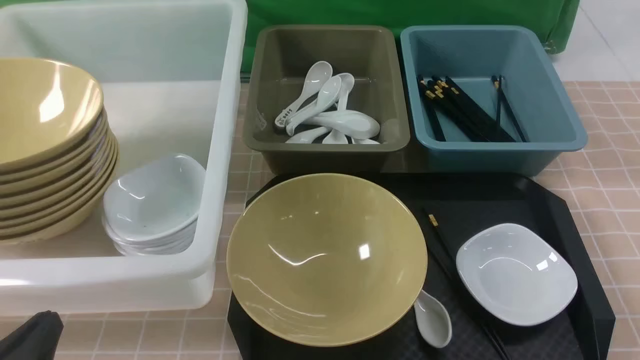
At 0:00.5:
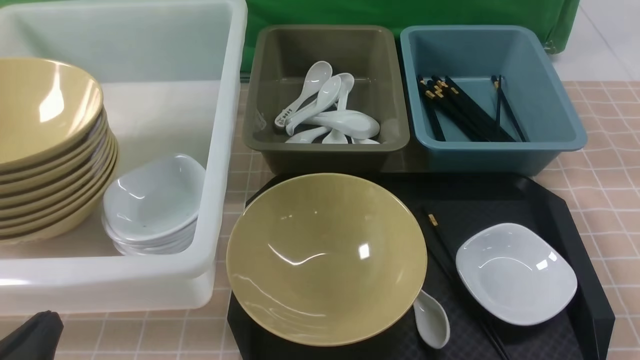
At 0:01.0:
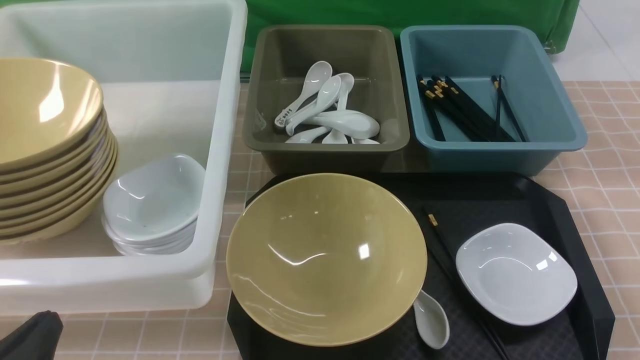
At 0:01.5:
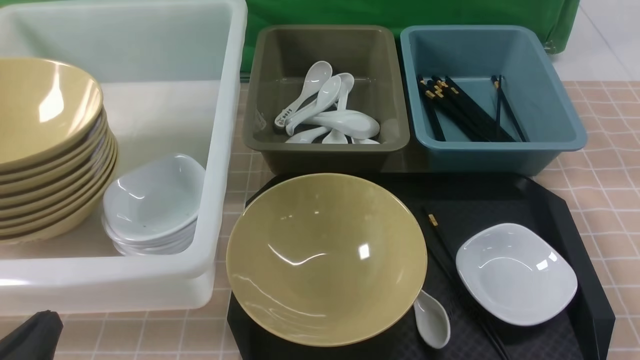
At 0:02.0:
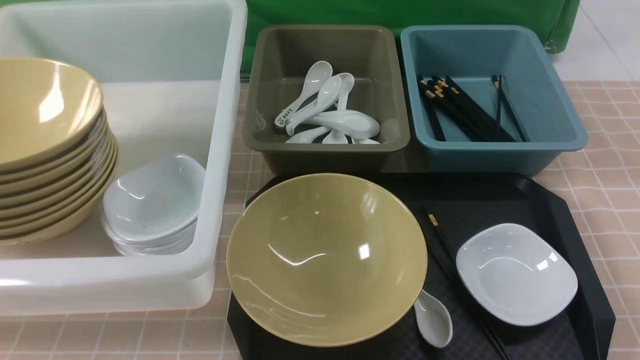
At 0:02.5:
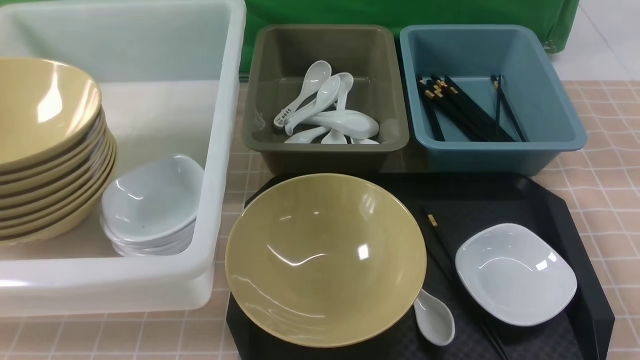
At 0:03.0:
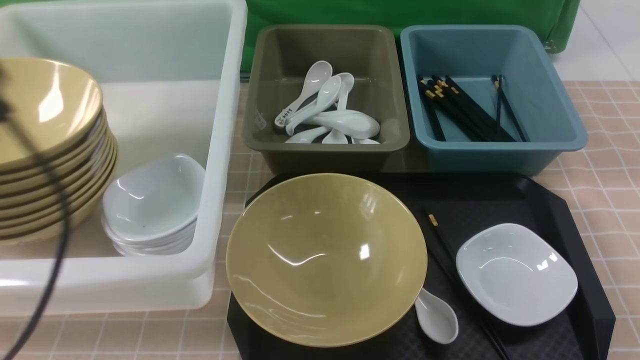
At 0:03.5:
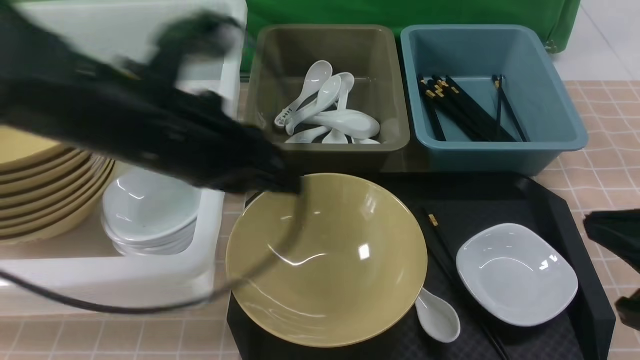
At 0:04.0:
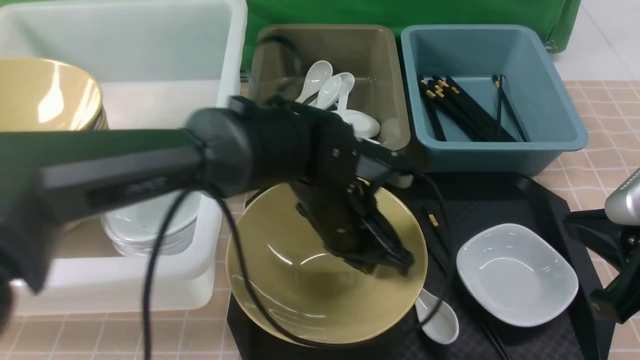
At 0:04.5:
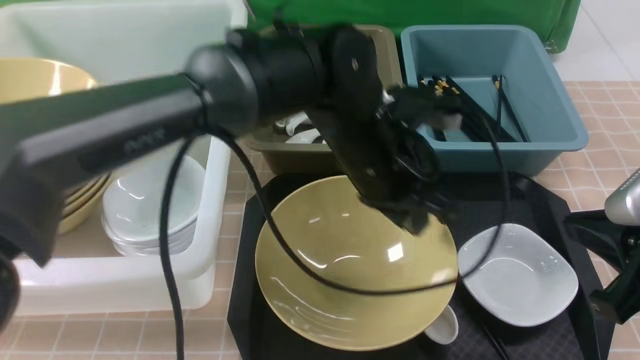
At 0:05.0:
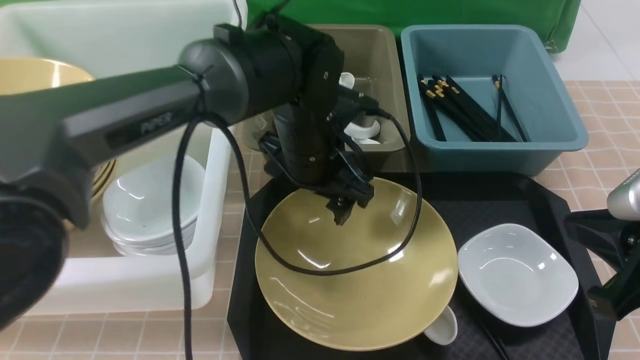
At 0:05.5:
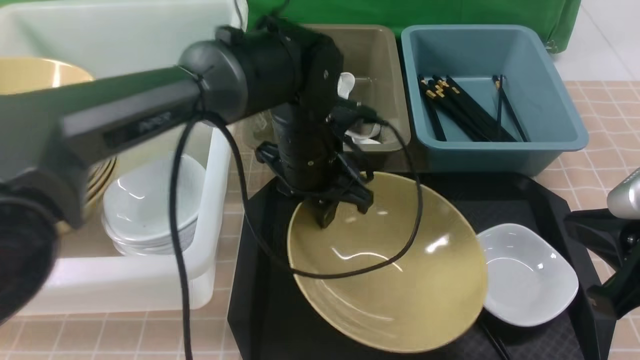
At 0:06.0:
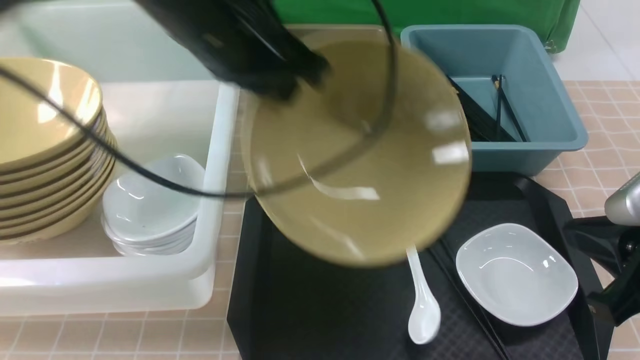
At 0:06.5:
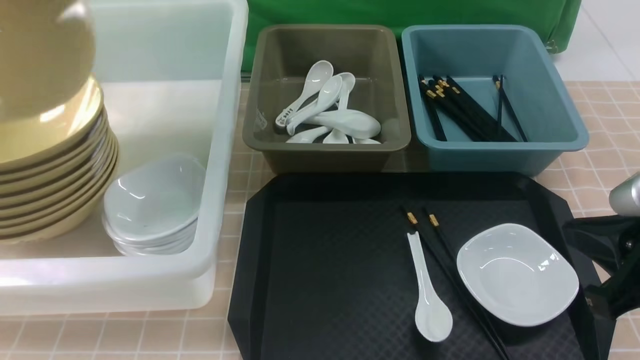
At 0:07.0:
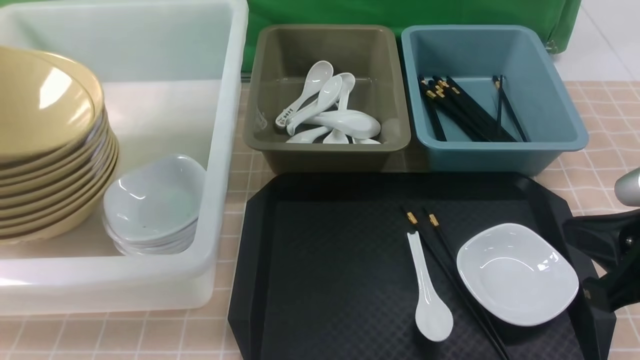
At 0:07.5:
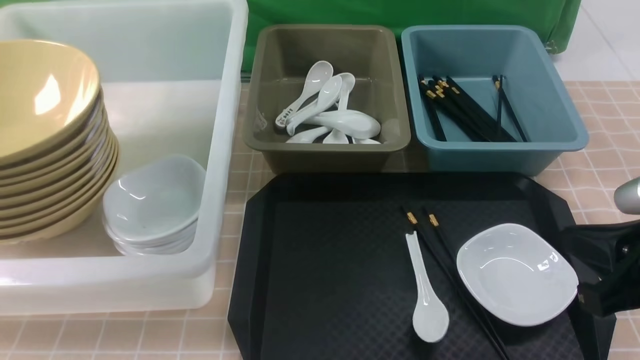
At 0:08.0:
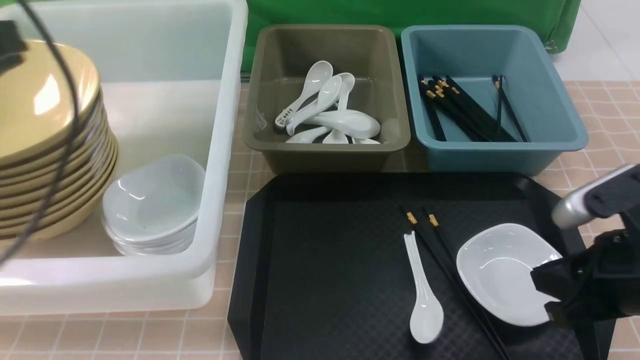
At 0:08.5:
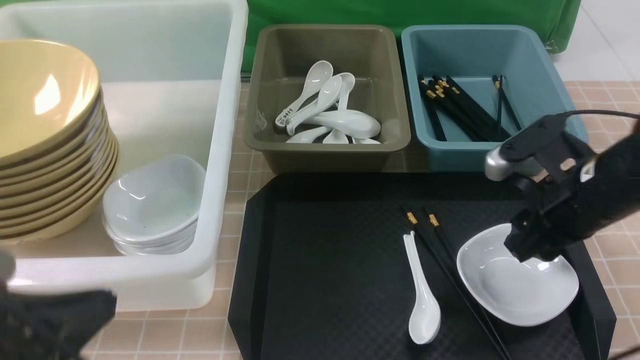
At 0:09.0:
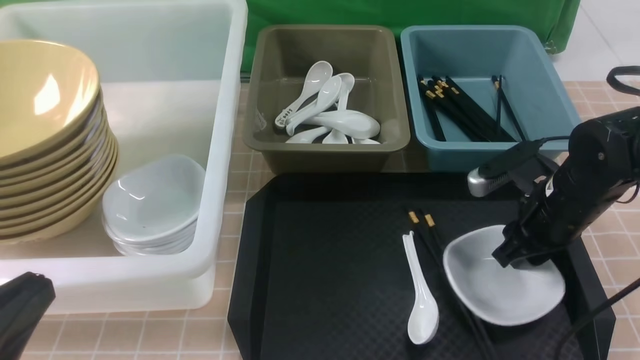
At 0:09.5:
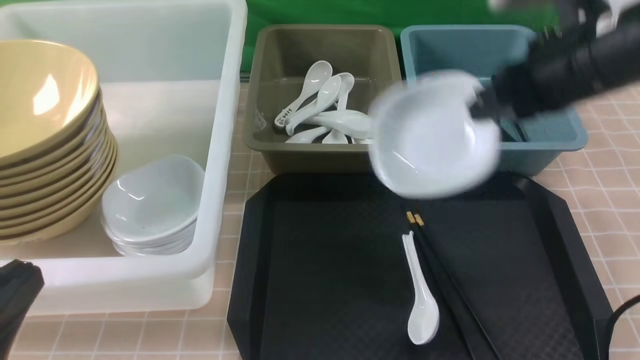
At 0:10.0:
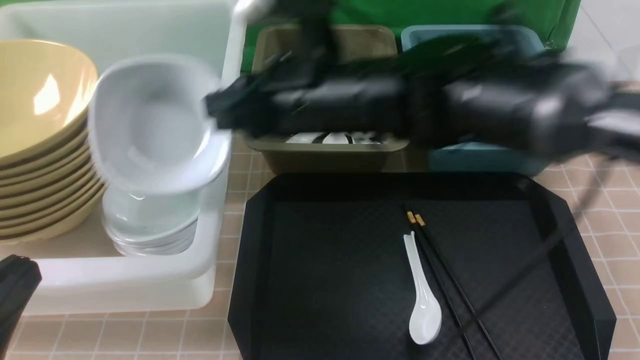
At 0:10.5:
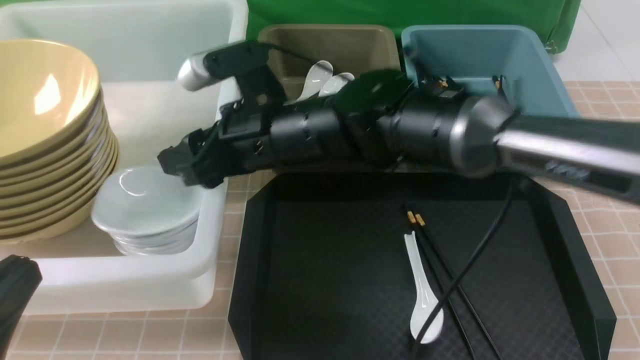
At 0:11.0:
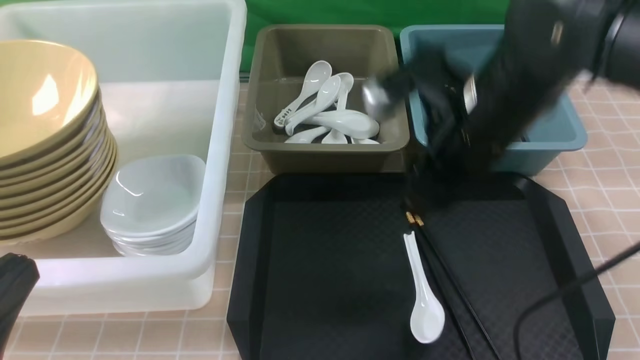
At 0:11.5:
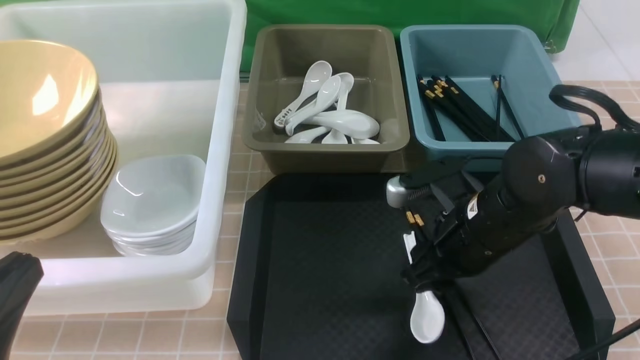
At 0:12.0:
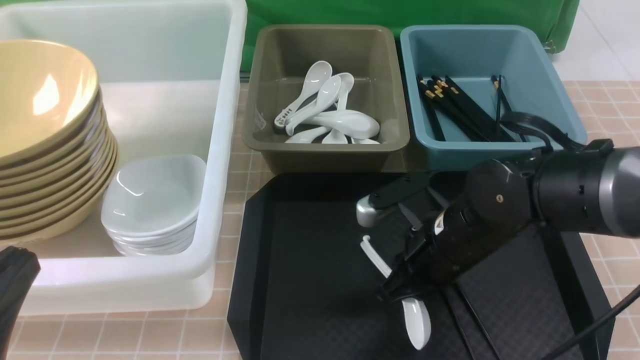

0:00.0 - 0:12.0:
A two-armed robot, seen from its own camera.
Task of the whole recording: on brown table put chopsticks spoon bowls plates into blue grey white boxes.
Step, 0:00.0 - 0:06.0: use the left arm to grab the yellow noodle bowl on the left.
Step, 0:06.5 - 0:07.5: use the left arm to put the noodle bowl into the large storage box on the left.
Step, 0:08.0 - 0:09.0: use the right arm to grab the plate.
Step, 0:09.5 - 0:10.5: use the right arm to put the plate into the large storage box on the left.
0:00.0 - 0:02.0: The left gripper heads upward, covering approximately 5 cm.
0:02.0 - 0:04.0: The right gripper moves forward and to the left, some 15 cm, and closes its fingers. The left gripper goes about 35 cm to the right and forward.
0:04.0 - 0:06.0: The left gripper shifts about 25 cm upward and to the left, and opens and closes again.
0:06.0 - 0:08.0: The left gripper shifts some 15 cm to the left and backward, and opens, then closes again.
0:08.0 - 0:10.0: The right gripper shifts about 30 cm to the left and forward, and opens, then closes again. Meanwhile the left gripper heads backward and downward, covering roughly 20 cm.
0:10.0 - 0:12.0: The right gripper goes some 15 cm downward and to the right, and opens and closes again.

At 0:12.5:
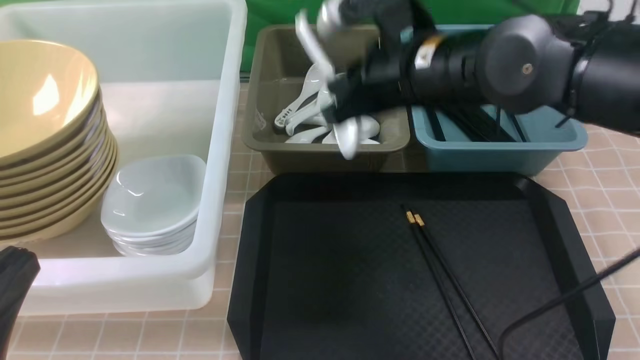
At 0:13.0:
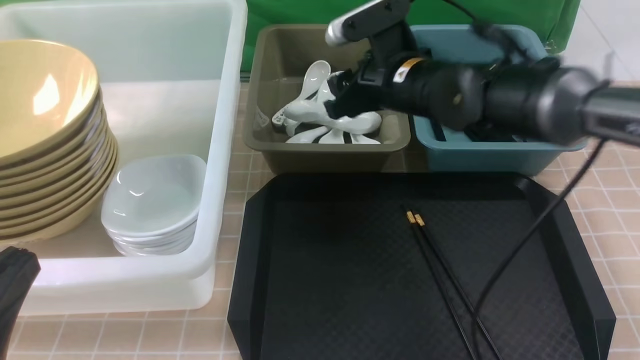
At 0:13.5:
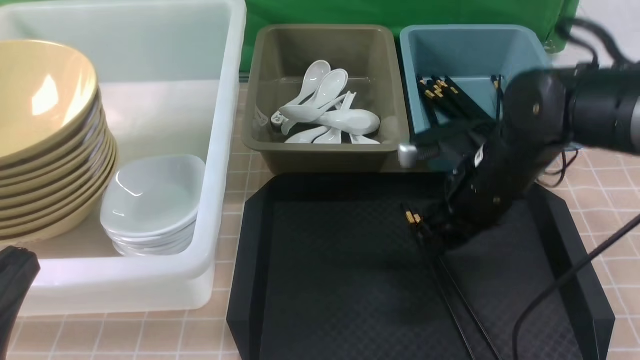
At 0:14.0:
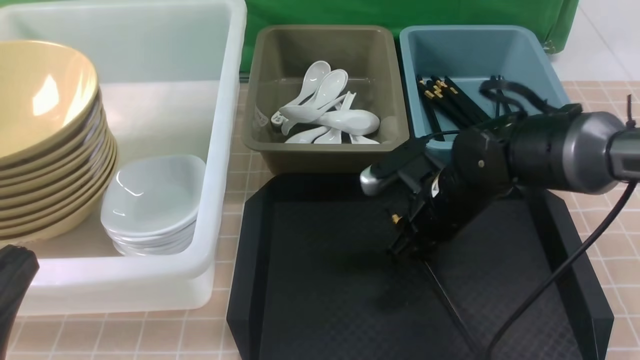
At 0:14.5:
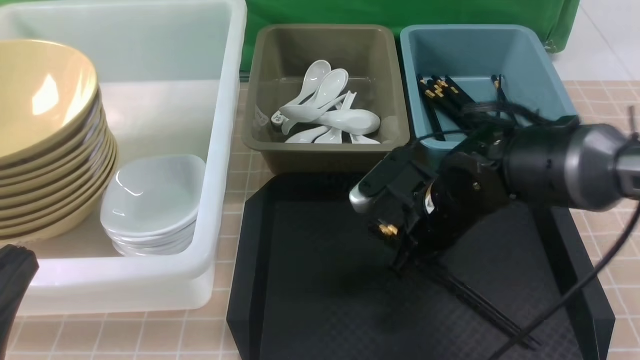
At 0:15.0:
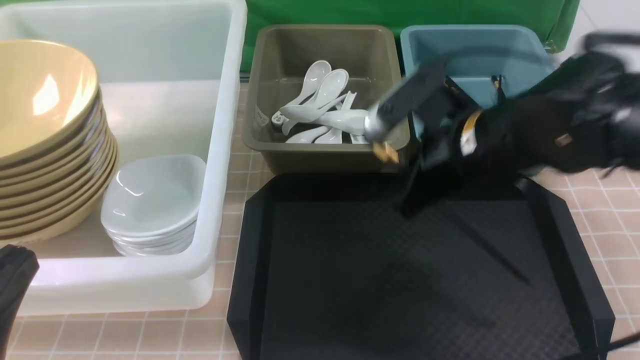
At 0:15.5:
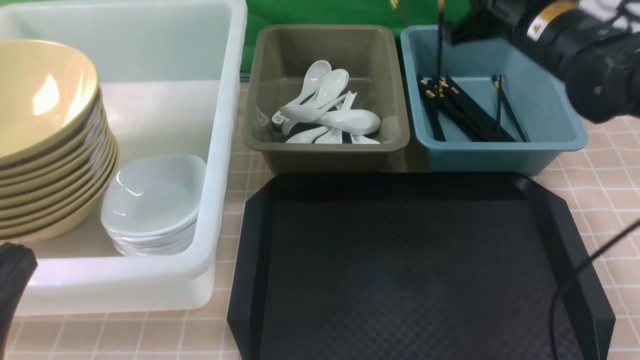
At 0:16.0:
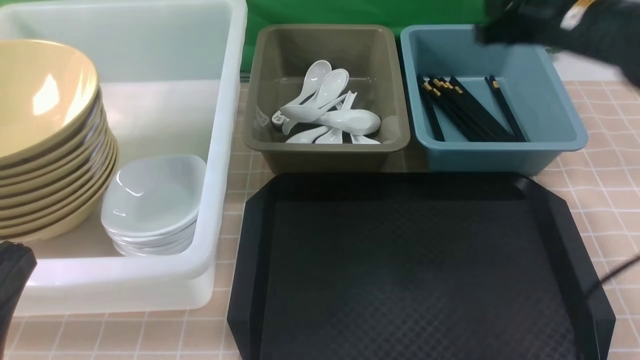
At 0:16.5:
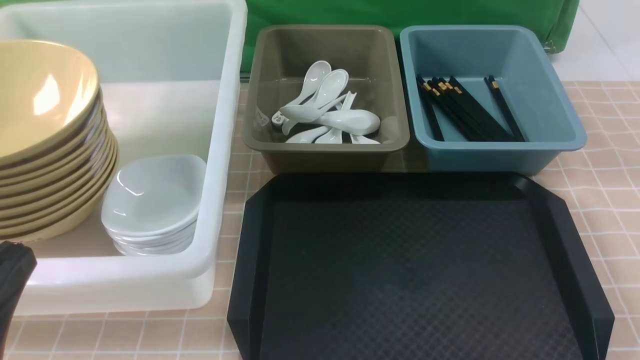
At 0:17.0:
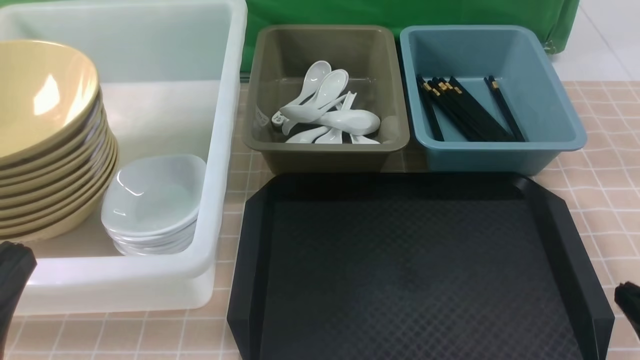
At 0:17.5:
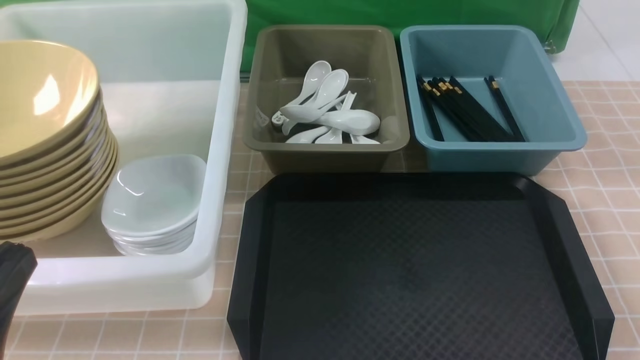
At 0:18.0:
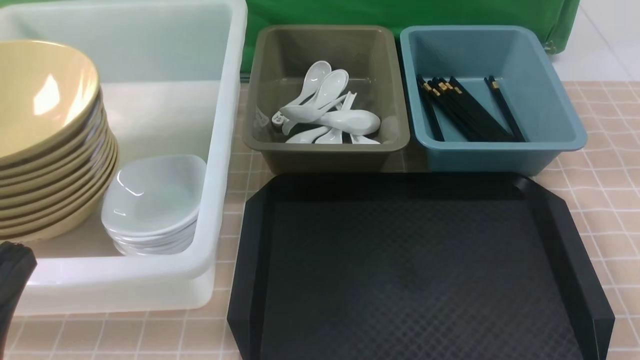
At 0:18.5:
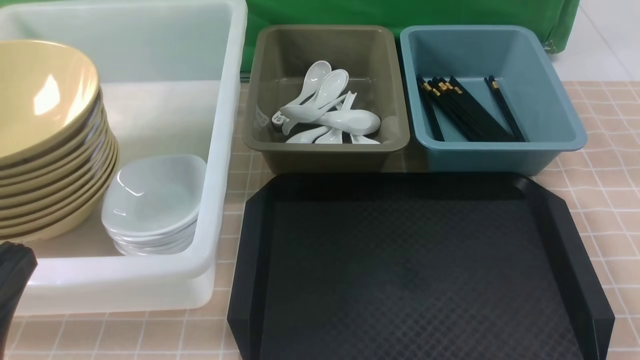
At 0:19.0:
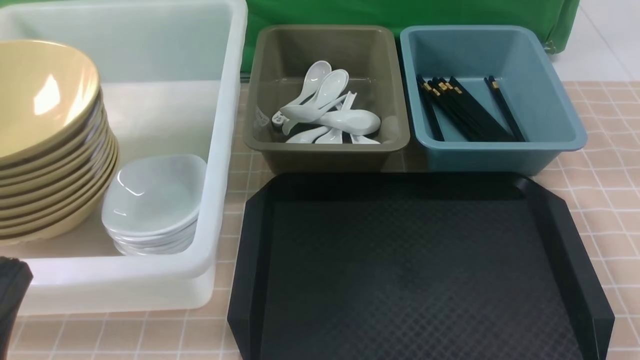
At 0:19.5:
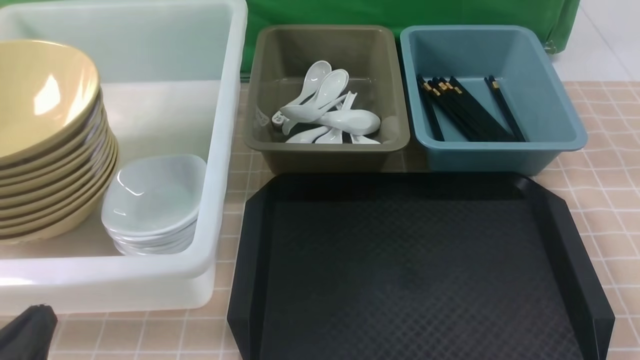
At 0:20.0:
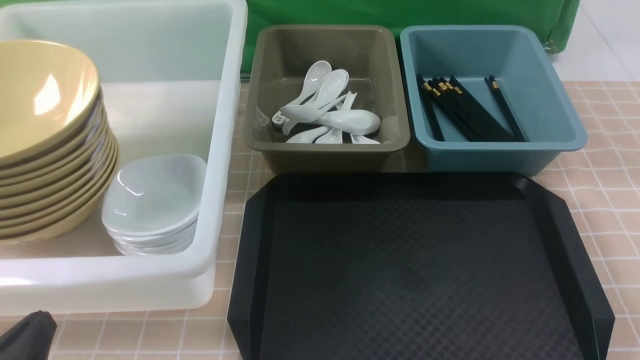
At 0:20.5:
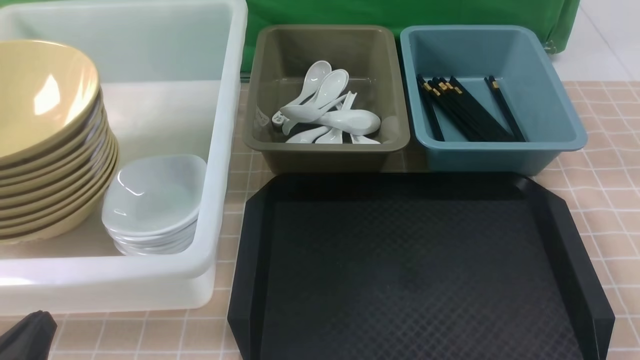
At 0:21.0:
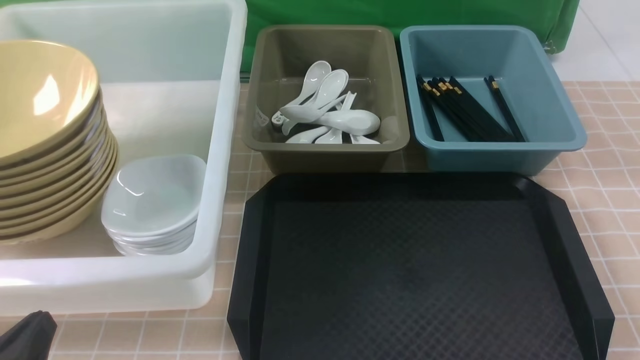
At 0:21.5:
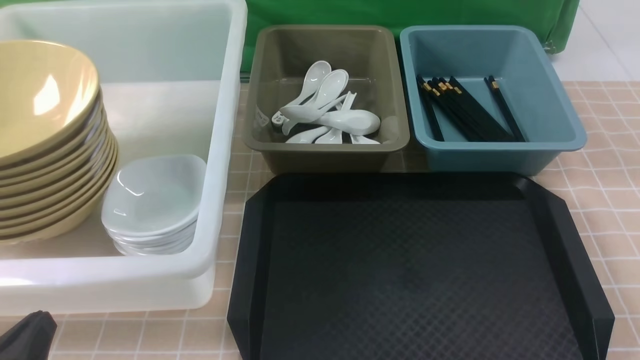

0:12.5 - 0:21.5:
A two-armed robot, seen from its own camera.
Task of the whole recording: on brown table put chopsticks spoon bowls plates into blue grey white boxes.
Step, 0:12.5 - 0:13.0: use the right arm to put the soup spoon into the small storage box in the middle.
Step, 0:13.5 - 0:14.5: use the right arm to grab the chopsticks.
Step, 0:15.0 - 0:15.5: use the right arm to put the chopsticks into the small storage box on the right.
0:12.5 - 0:14.5: The right gripper heads downward, covering some 10 cm, and opens, then closes again.
0:14.5 - 0:17.0: The right gripper goes approximately 30 cm backward and to the right.
0:17.0 - 0:19.5: The left gripper travels downward by some 10 cm.
